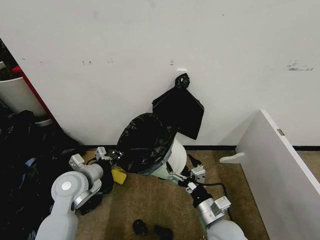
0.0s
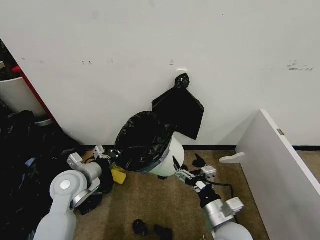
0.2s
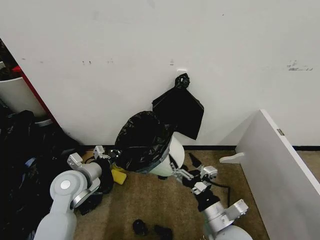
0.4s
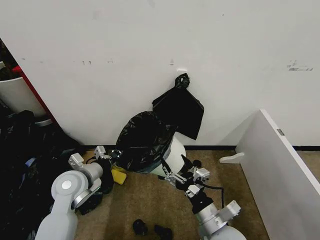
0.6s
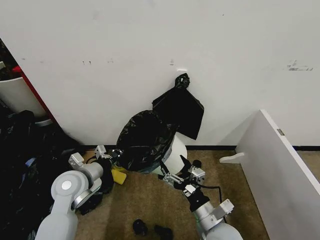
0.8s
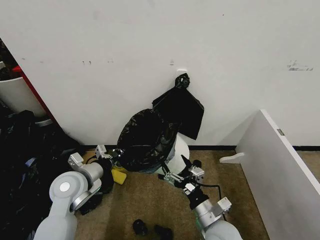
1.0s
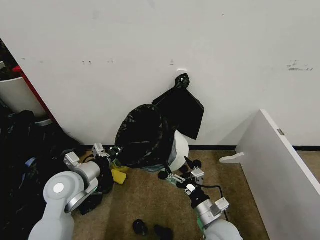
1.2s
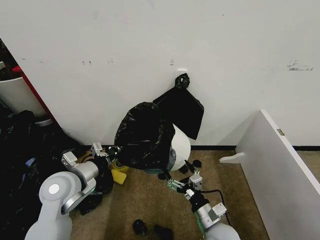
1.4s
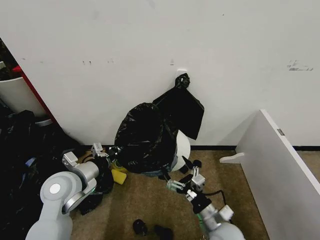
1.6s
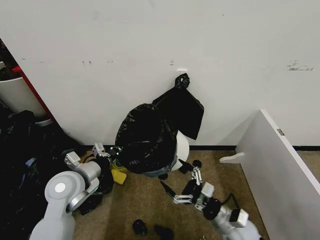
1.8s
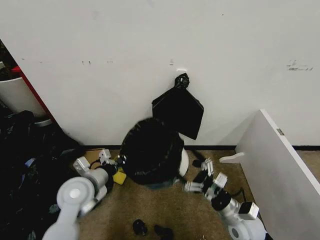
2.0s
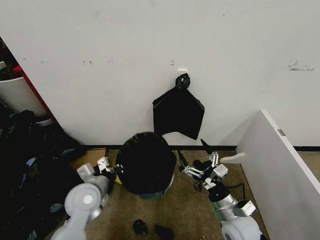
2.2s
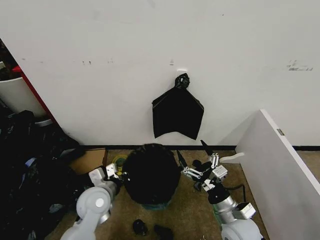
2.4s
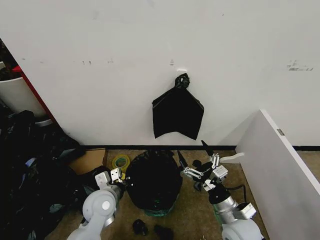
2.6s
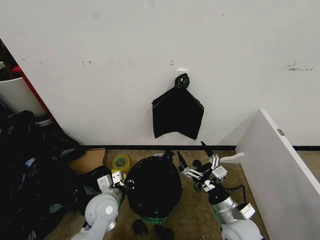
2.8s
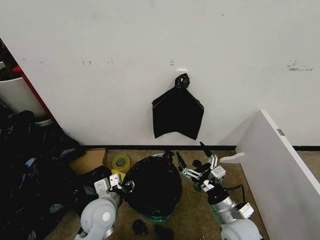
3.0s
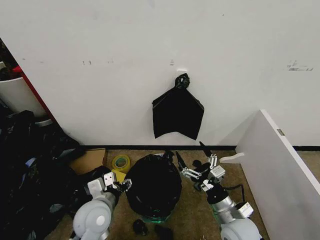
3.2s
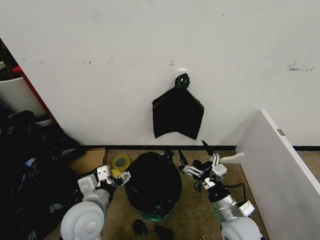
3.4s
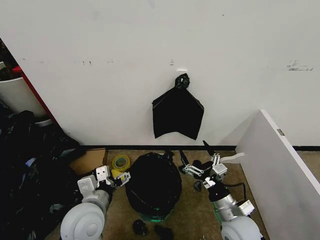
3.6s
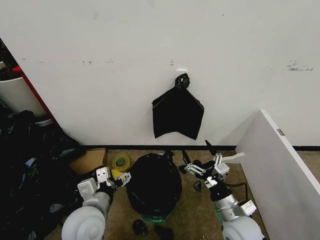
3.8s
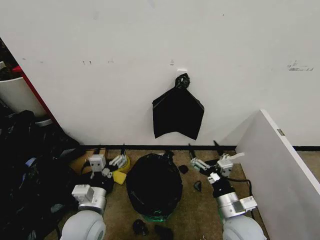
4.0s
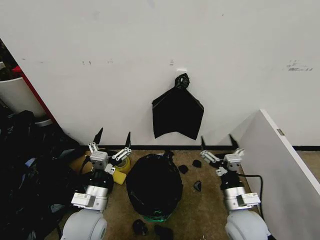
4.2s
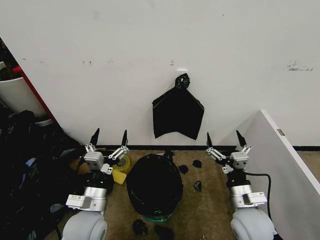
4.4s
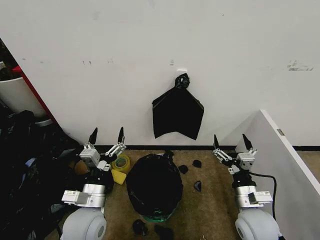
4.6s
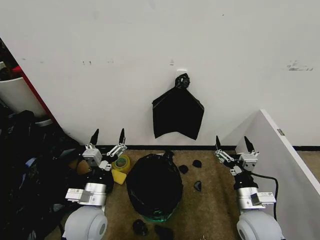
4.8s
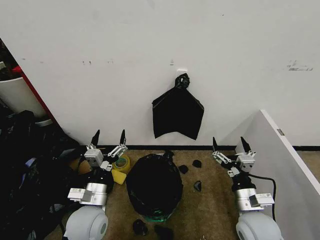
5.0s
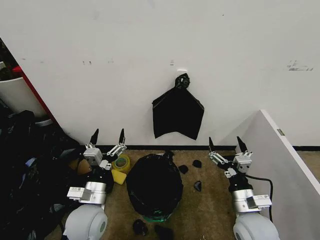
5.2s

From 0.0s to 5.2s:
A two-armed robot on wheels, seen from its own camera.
Task of the whole recording: Place the garbage bag over the trash bin.
From 1.8s to 3.4s: The left gripper is displaced to the right and backward by approximately 10 cm, goes downward and returns, roughly 10 cm each way, and opens. The right gripper moves roughly 5 cm.

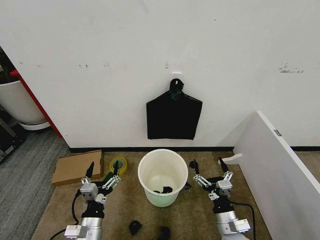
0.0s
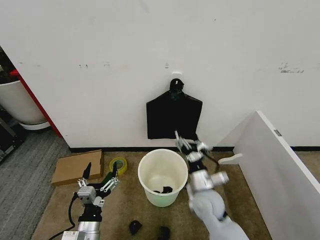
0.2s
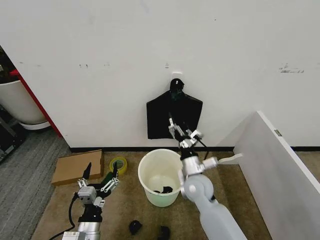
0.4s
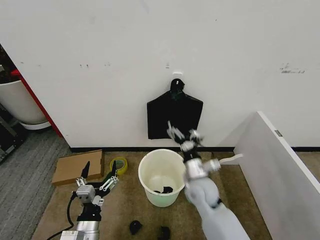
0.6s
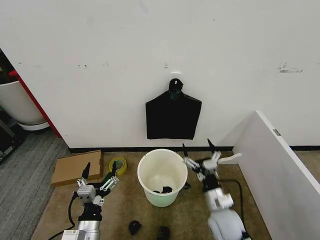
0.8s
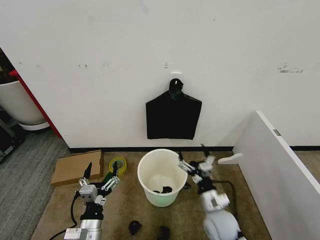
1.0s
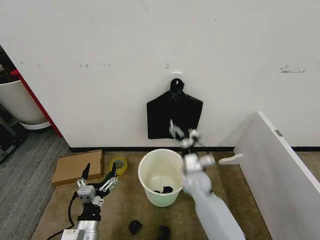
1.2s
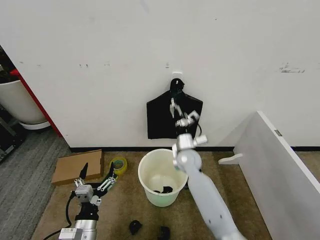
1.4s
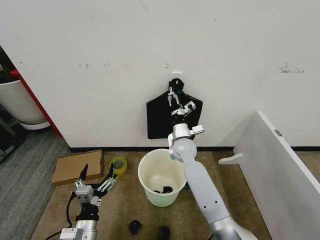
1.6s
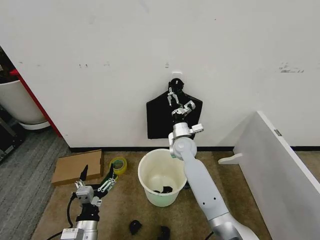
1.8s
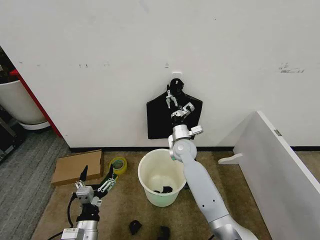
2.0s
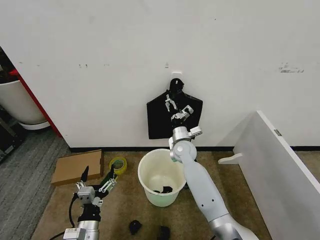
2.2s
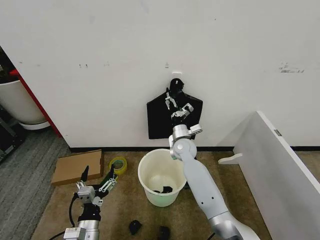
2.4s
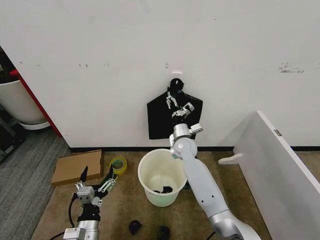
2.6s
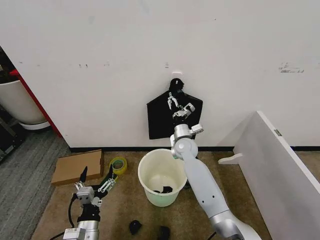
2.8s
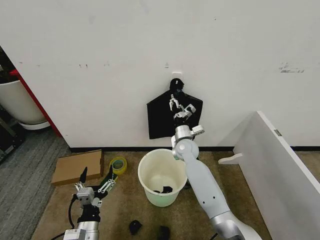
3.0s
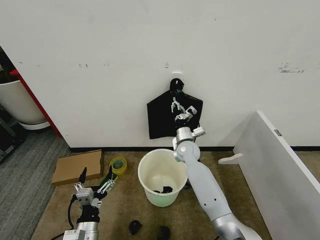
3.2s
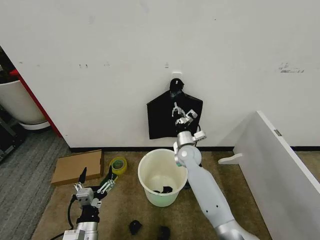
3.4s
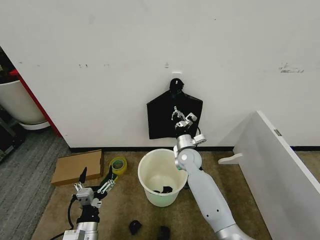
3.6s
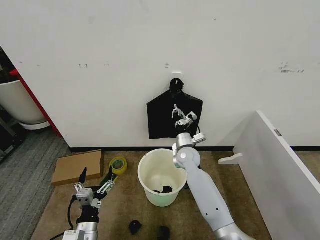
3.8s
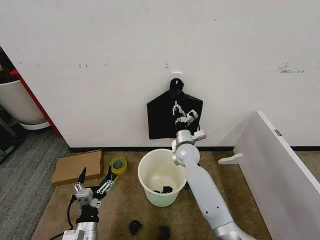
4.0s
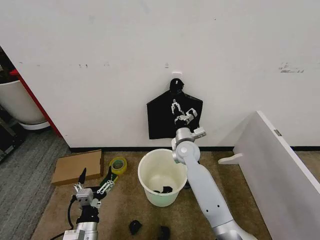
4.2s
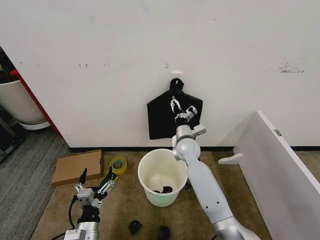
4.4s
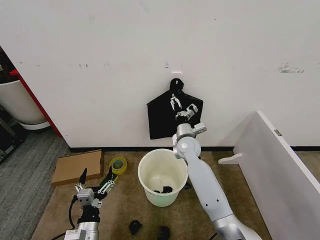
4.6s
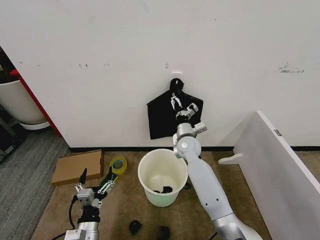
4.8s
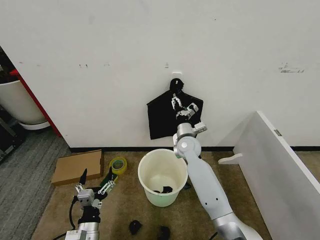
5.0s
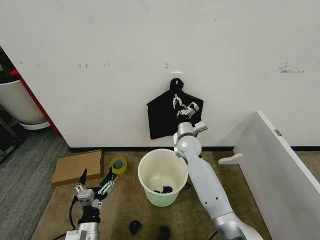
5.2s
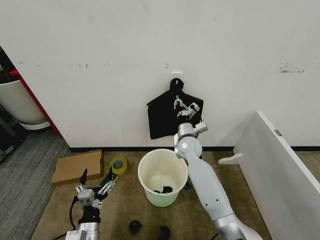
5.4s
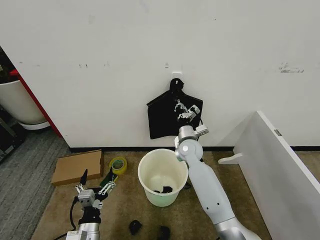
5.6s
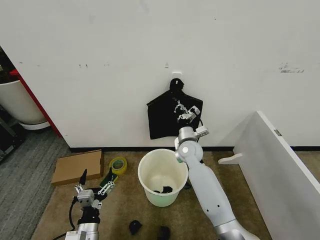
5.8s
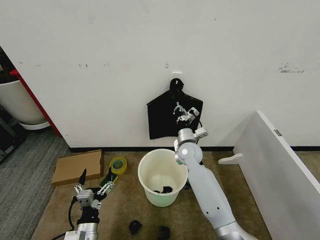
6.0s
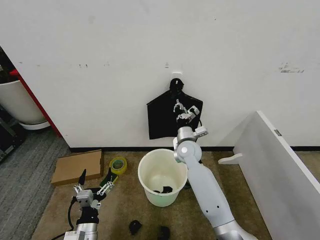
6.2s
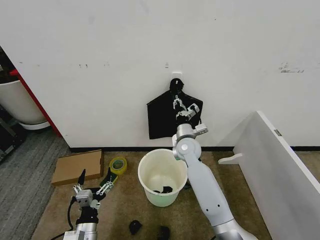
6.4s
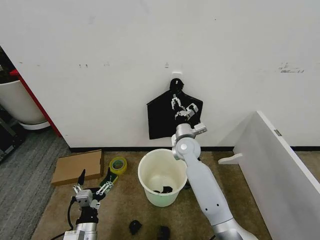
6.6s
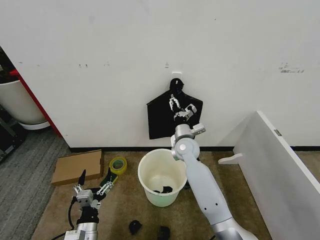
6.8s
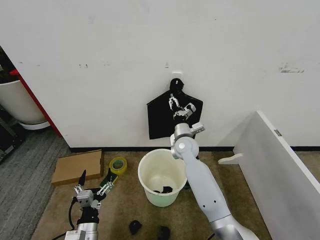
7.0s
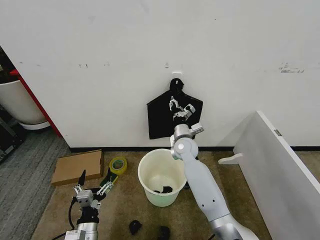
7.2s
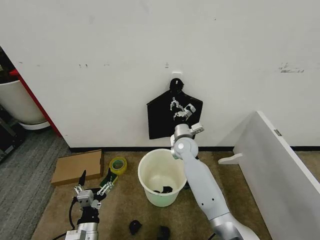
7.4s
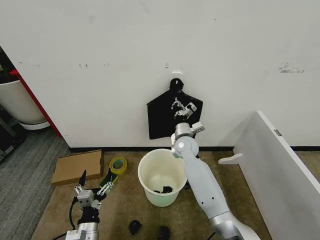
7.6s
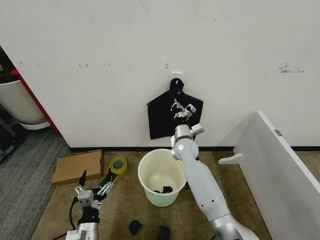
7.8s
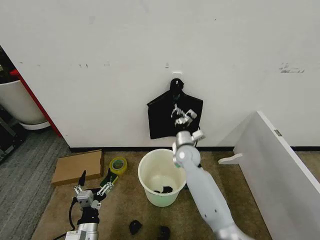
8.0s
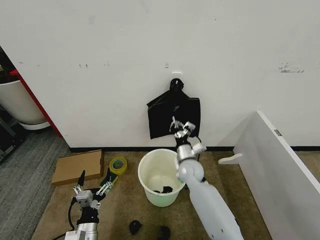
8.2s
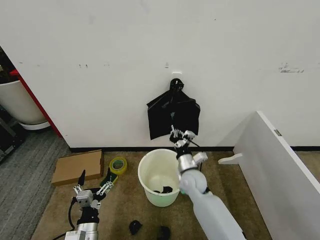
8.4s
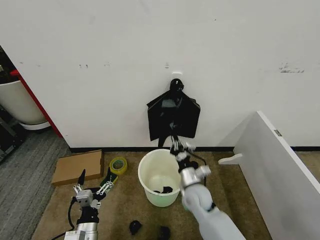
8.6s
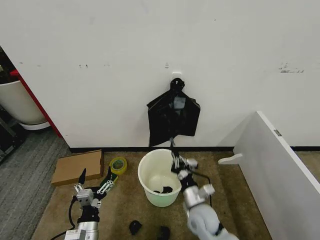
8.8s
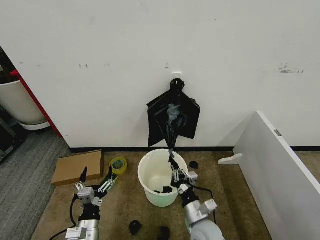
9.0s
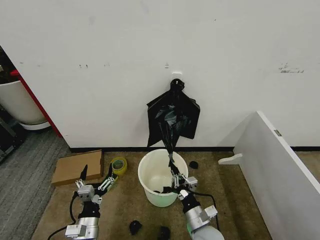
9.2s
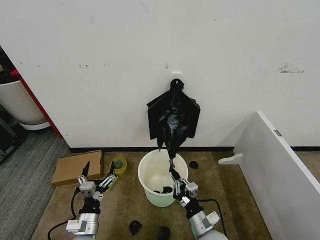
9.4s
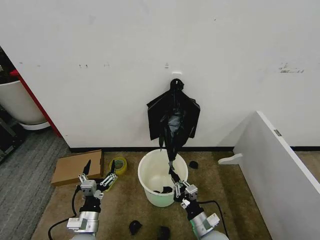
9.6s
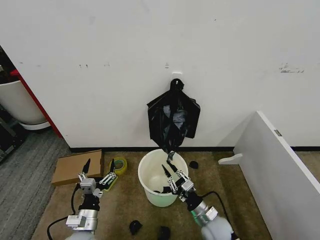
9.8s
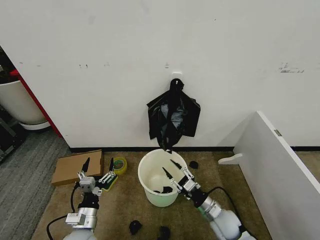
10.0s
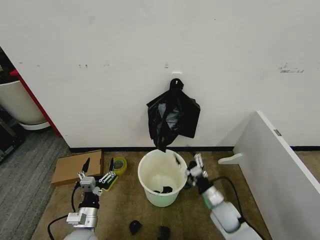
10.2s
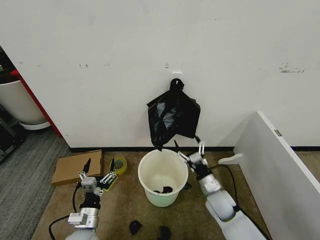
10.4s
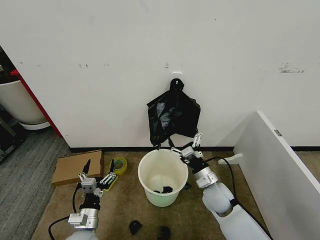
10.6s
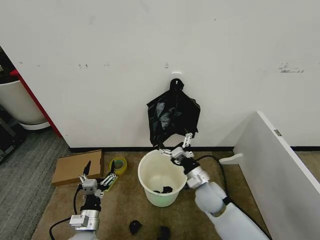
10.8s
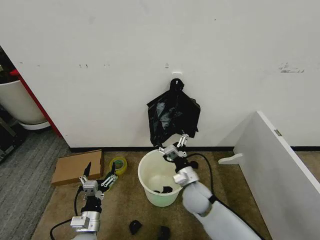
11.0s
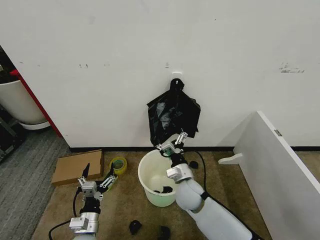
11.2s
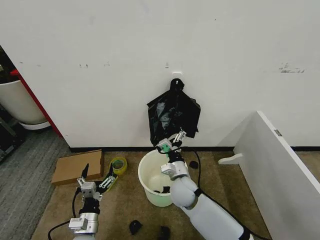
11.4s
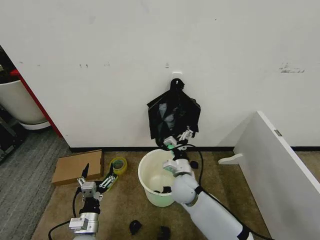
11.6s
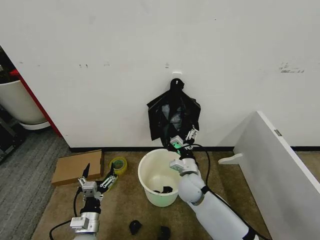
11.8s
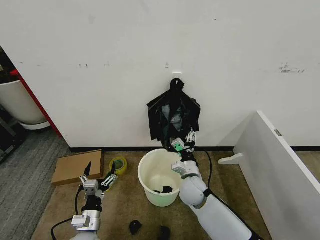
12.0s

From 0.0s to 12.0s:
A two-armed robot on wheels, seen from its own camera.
Task of the whole recording: Place the garbage bag over the trash bin.
From 1.6s to 3.0s: The right gripper closes.
From 3.0s to 4.4s: The right gripper closes and opens again.
From 4.4s to 6.0s: The right gripper closes.
From 6.0s to 7.6s: The right gripper opens, then closes again.
From 7.6s to 9.0s: The right gripper is displaced backward by about 25 cm.
From 9.0s to 10.4s: The right gripper shifts some 10 cm forward and to the right, and opens.
From 10.4s to 12.0s: The right gripper shifts some 10 cm to the left.

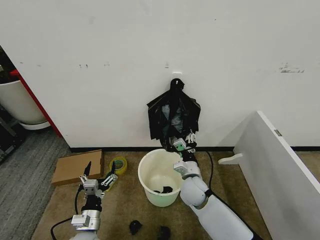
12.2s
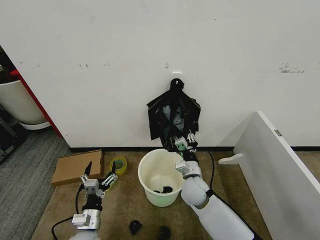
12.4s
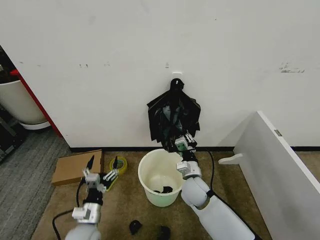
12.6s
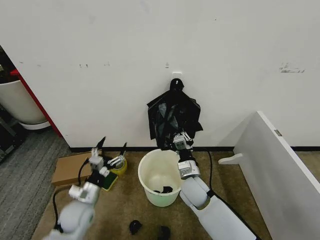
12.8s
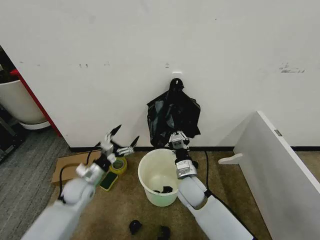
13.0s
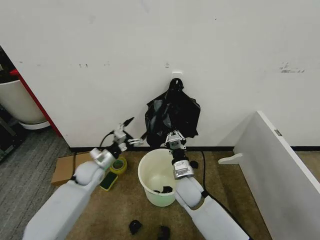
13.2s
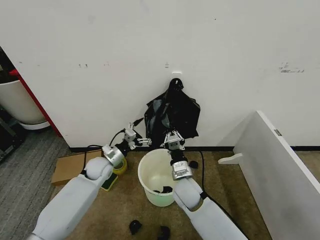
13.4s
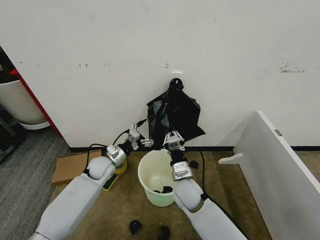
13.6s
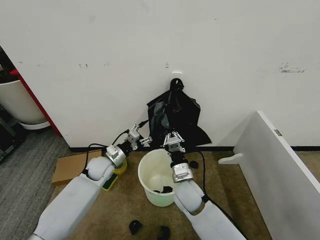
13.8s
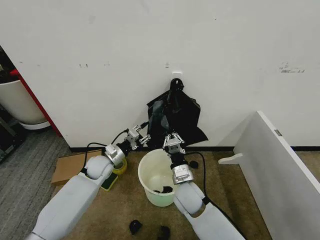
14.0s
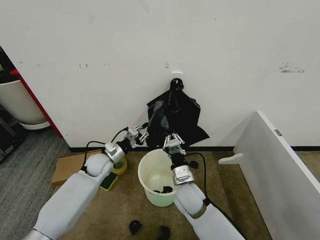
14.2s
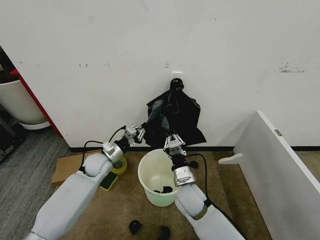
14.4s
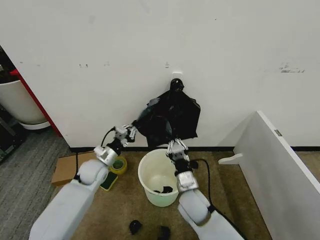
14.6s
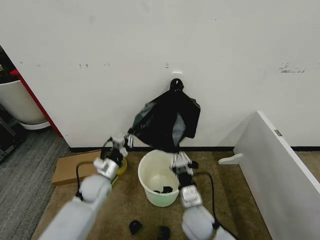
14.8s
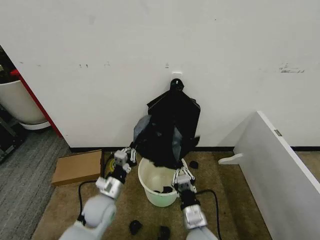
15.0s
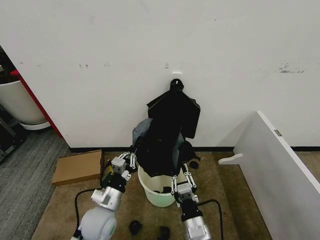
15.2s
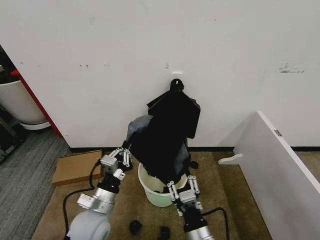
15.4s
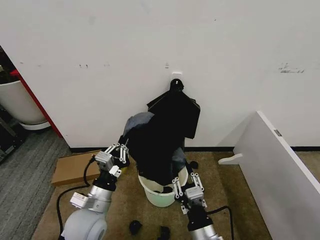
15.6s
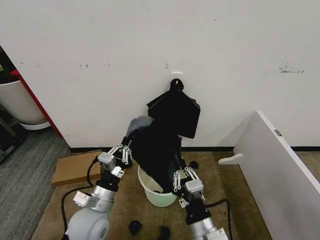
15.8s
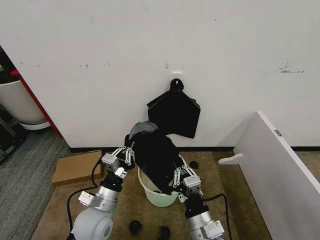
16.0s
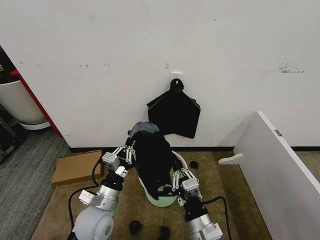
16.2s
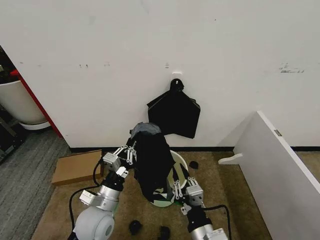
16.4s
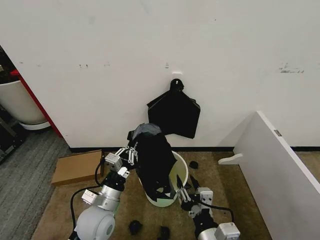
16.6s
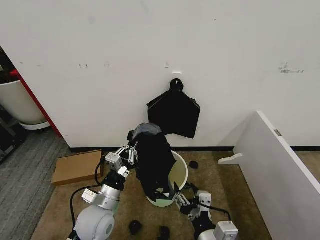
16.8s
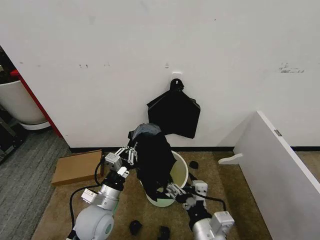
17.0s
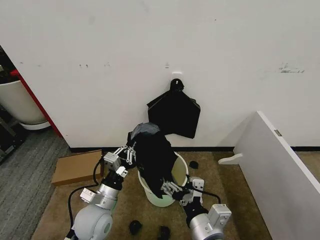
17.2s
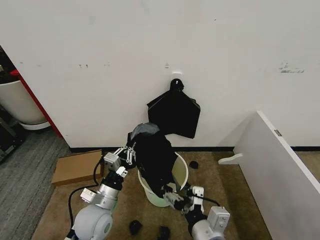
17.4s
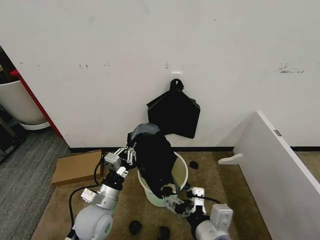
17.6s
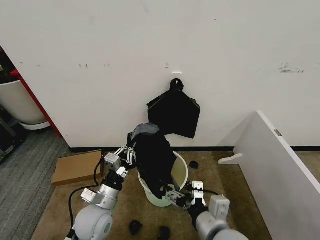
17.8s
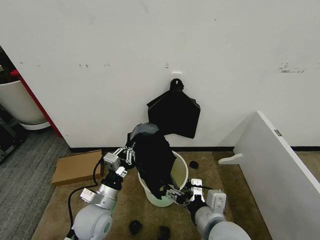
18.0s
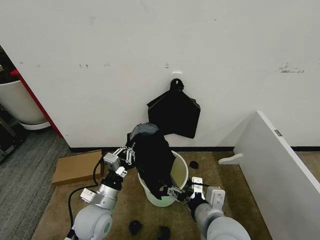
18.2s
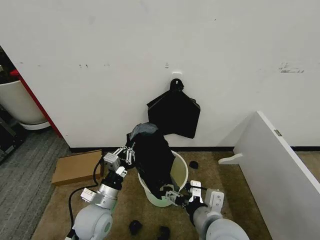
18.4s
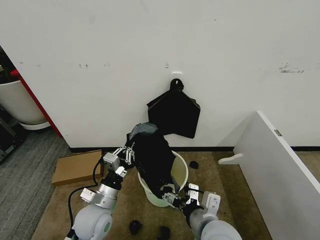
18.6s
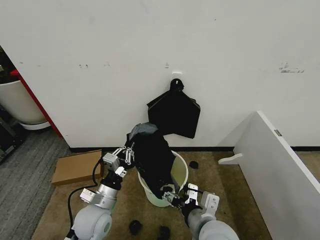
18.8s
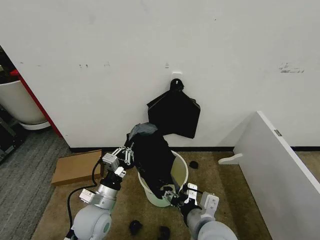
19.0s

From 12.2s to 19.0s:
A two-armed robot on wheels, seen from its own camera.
Task of the whole recording: Place the garbage bag over the trash bin.
From 12.2s to 13.6s: The right gripper closes. Meanwhile the left gripper shifts about 25 cm forward.
From 13.6s to 15.0s: The grippers both shift backward by some 15 cm. The left gripper closes its fingers.
From 15.0s to 16.2s: The grippers both shift upward by some 5 cm. The right gripper opens, then closes once more.
From 16.2s to 17.6s: The right gripper heads upward, covering about 10 cm, and opens.
From 17.6s to 19.0s: The right gripper heads forward, covering some 5 cm.
